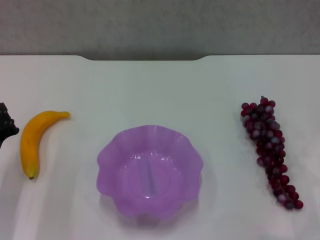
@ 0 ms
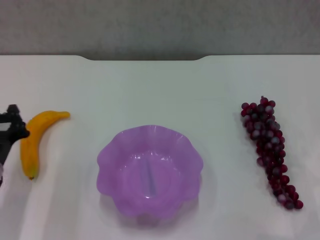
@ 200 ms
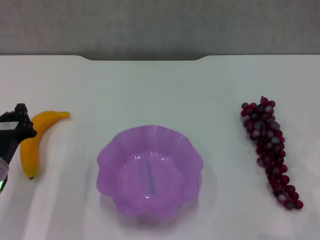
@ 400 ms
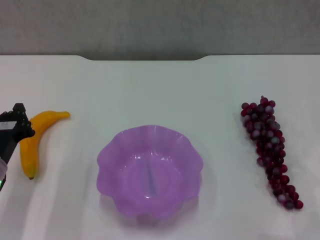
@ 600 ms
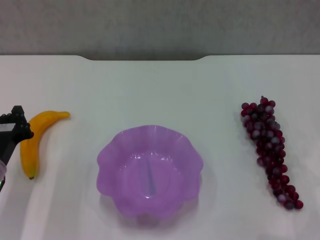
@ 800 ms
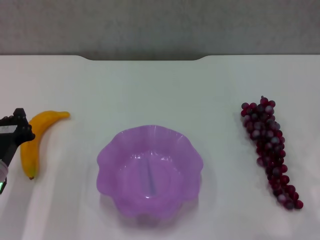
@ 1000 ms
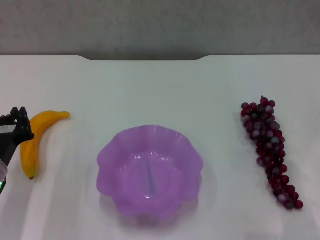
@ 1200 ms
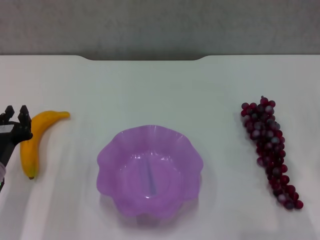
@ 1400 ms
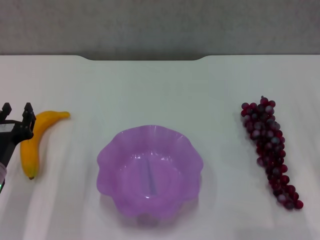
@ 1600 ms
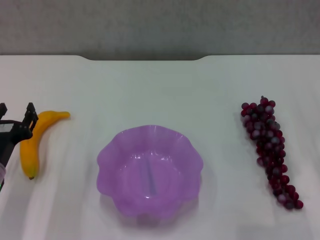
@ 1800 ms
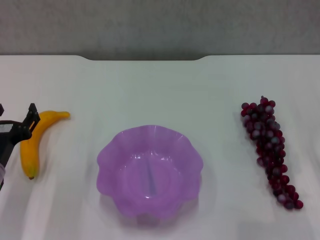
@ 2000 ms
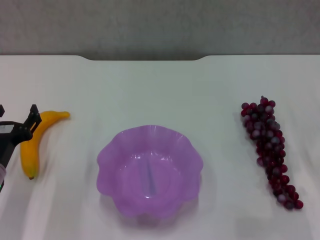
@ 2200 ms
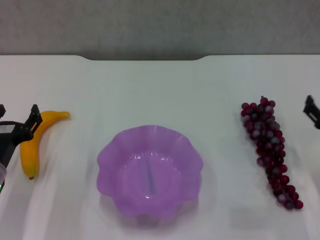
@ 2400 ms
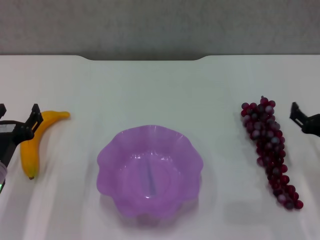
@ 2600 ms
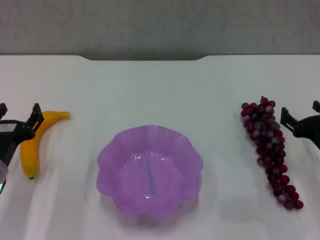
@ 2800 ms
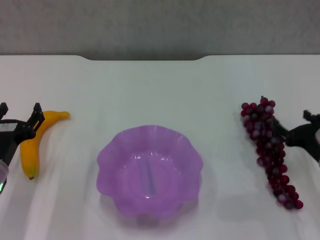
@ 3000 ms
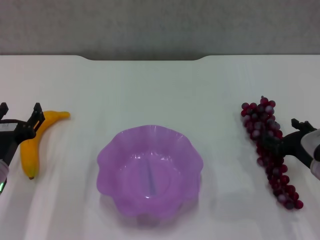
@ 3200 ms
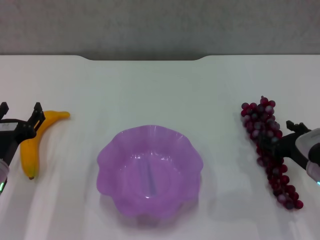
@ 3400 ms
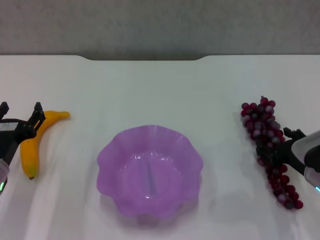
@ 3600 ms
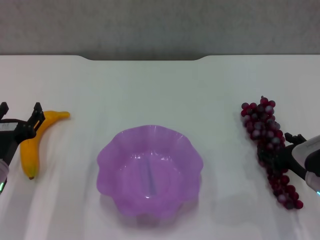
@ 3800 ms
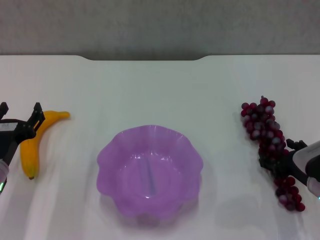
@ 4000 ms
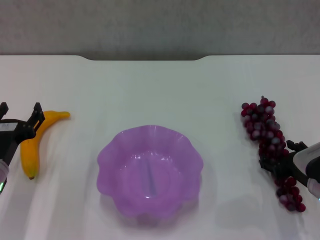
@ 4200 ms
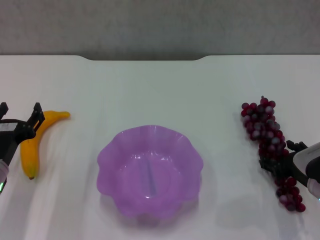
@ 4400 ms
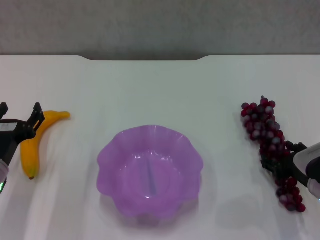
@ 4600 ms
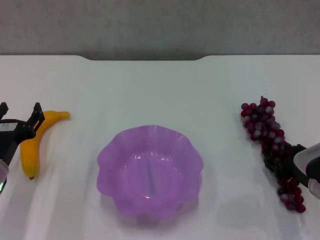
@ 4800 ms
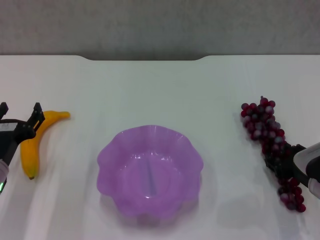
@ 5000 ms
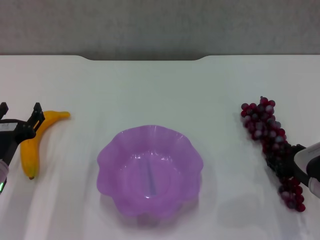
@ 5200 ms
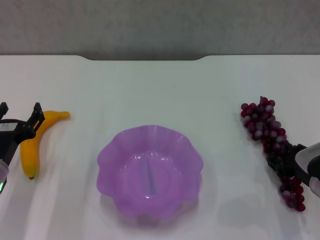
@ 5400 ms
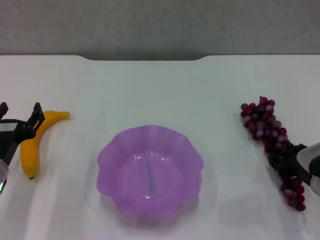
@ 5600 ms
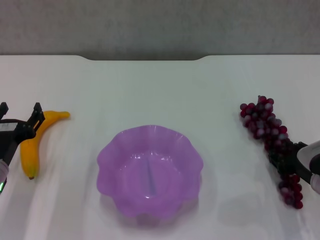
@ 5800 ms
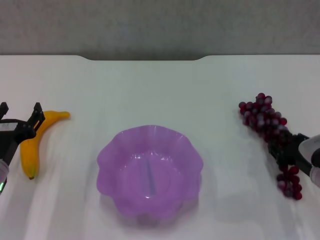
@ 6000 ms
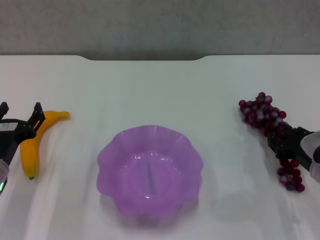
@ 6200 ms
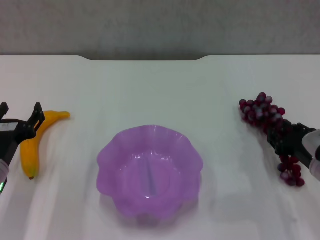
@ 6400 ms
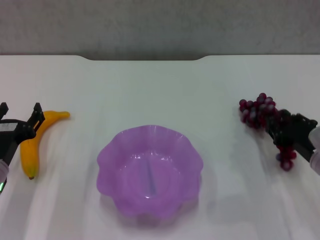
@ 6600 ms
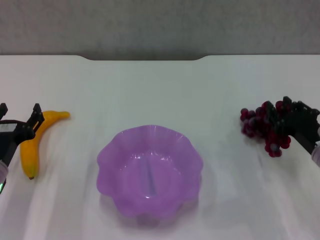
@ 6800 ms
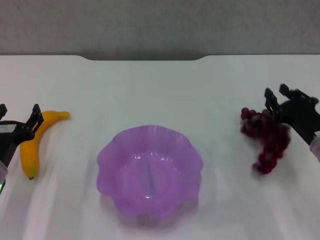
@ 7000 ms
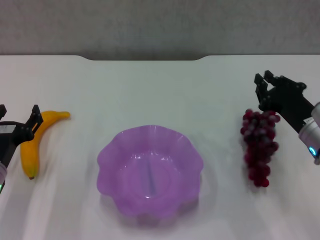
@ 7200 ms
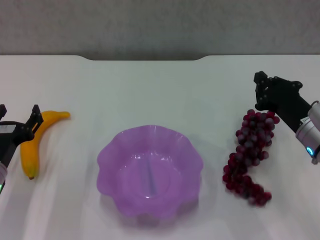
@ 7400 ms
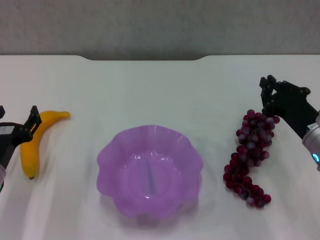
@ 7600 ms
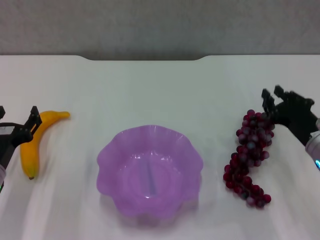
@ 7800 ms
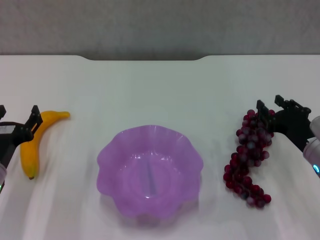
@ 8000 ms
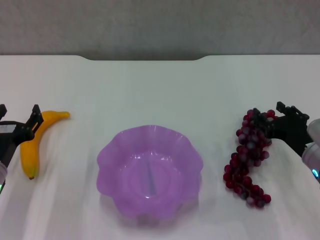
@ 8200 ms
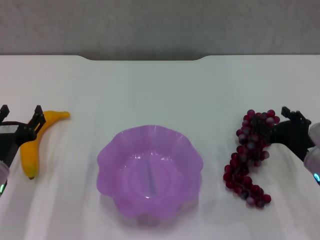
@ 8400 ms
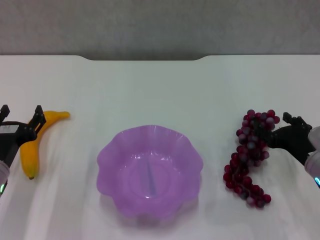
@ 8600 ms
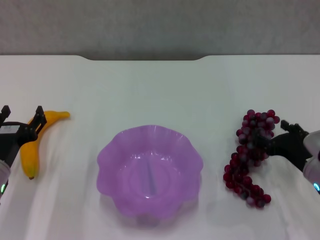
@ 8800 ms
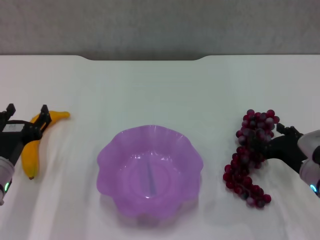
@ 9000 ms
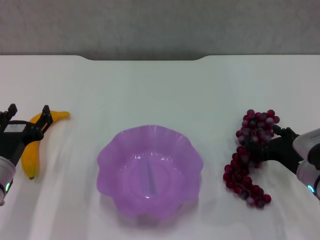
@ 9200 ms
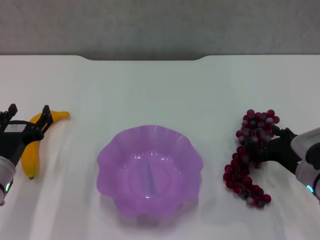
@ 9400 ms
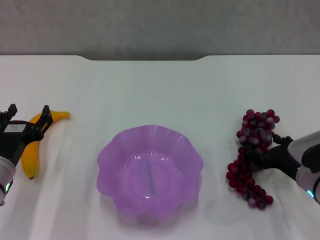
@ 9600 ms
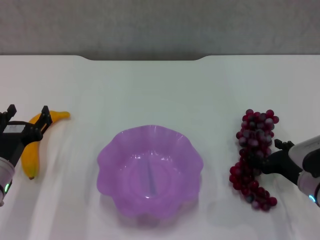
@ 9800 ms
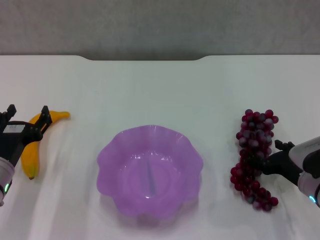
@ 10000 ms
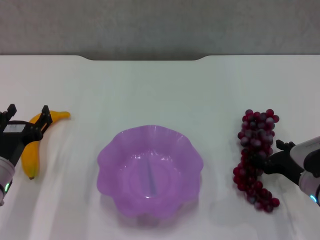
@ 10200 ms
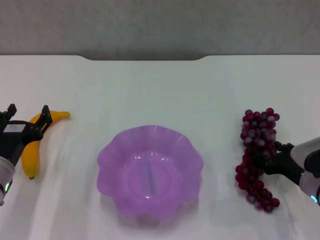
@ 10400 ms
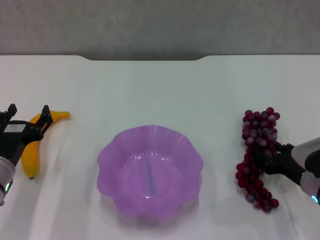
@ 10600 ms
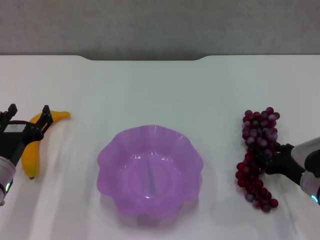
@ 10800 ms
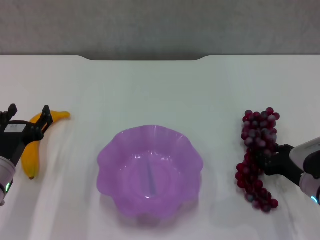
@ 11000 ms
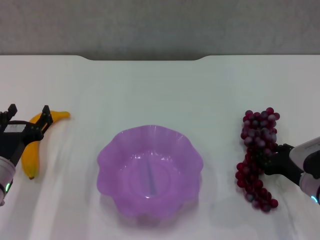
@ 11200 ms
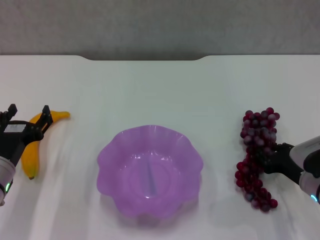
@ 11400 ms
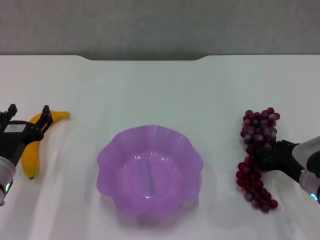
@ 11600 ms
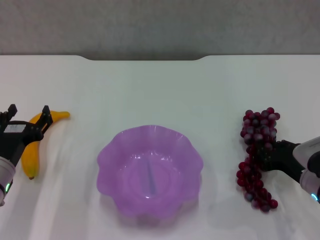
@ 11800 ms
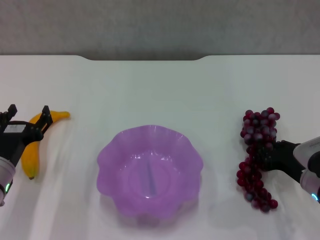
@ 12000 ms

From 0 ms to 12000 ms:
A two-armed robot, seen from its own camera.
From 0 ms to 1600 ms: There are only small adjustments of the grippers.
From 1600 ms to 3000 ms: The left gripper opens up. Meanwhile the right gripper ends up roughly 5 cm from where it was, and opens.
From 3000 ms to 4400 ms: The grippers make only small movements.
From 4400 ms to 6000 ms: The right gripper closes.
From 6000 ms to 7600 ms: The right gripper goes about 5 cm upward, and closes up.
From 7600 ms to 9000 ms: The right gripper changes place by roughly 5 cm, and opens up.
From 9000 ms to 10400 ms: There are only small adjustments of the grippers.
From 10400 ms to 12000 ms: The right gripper closes.

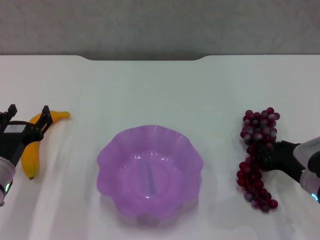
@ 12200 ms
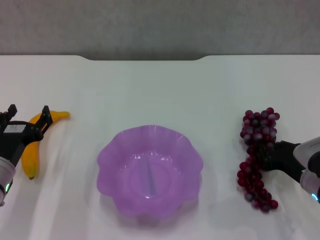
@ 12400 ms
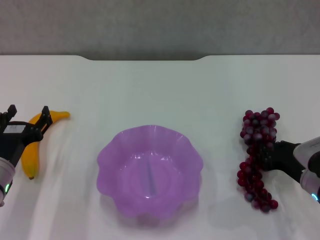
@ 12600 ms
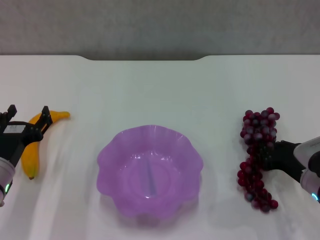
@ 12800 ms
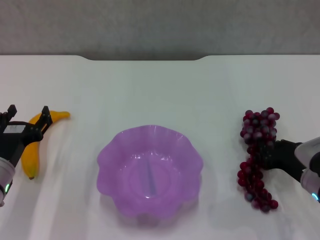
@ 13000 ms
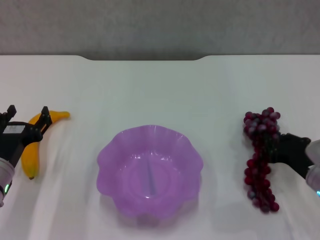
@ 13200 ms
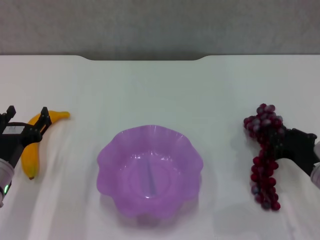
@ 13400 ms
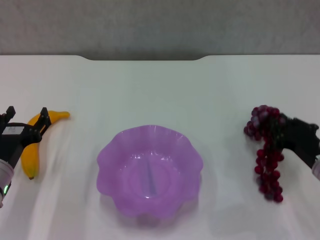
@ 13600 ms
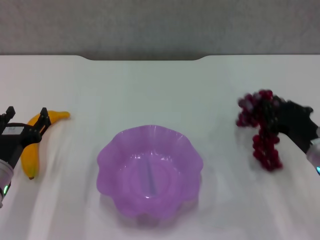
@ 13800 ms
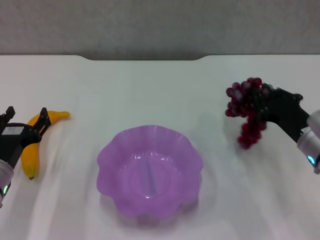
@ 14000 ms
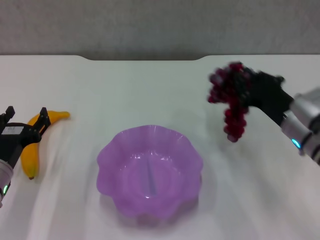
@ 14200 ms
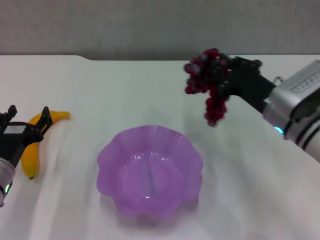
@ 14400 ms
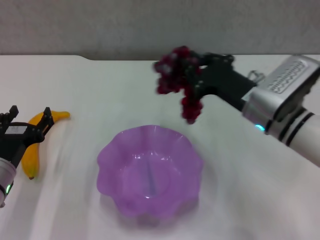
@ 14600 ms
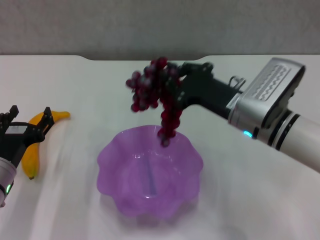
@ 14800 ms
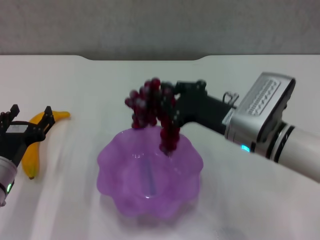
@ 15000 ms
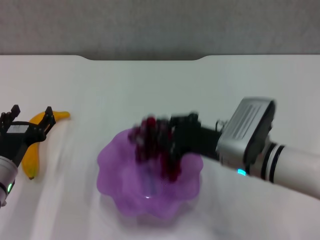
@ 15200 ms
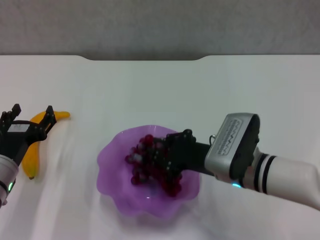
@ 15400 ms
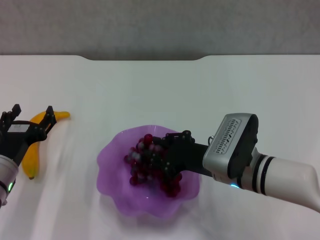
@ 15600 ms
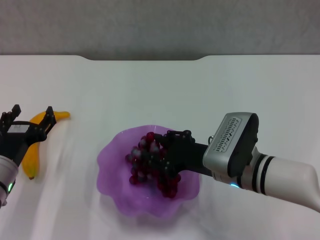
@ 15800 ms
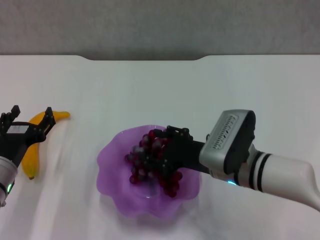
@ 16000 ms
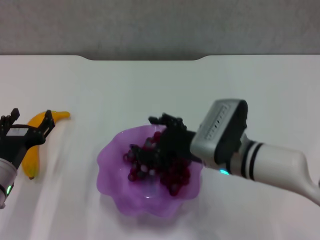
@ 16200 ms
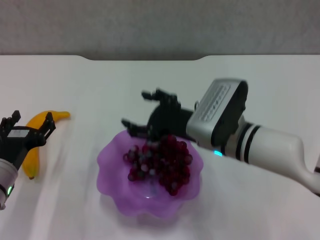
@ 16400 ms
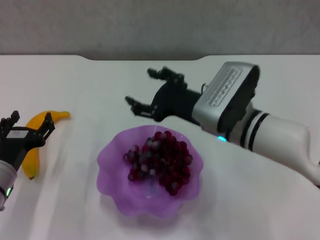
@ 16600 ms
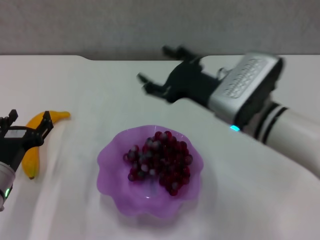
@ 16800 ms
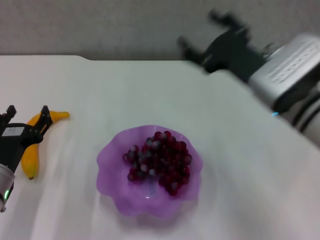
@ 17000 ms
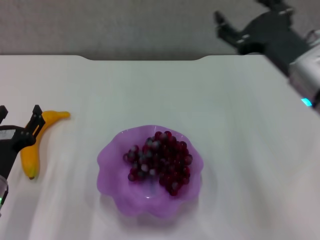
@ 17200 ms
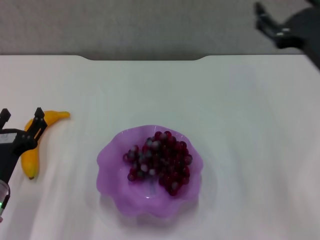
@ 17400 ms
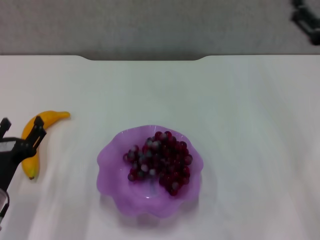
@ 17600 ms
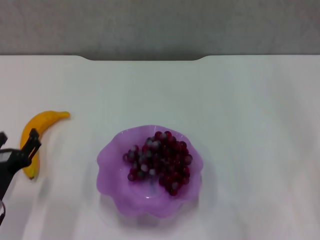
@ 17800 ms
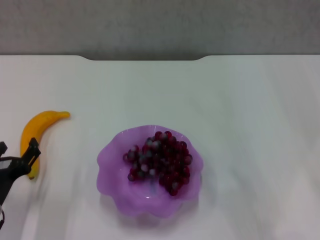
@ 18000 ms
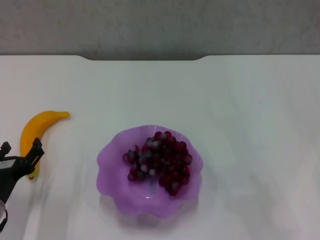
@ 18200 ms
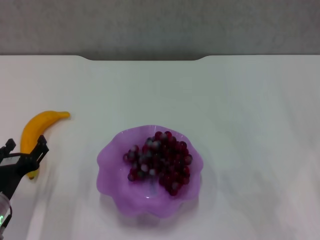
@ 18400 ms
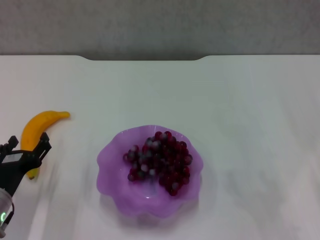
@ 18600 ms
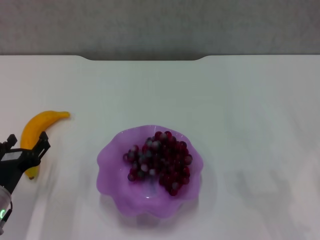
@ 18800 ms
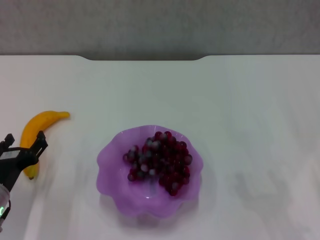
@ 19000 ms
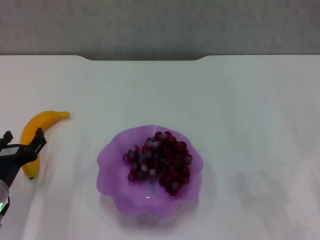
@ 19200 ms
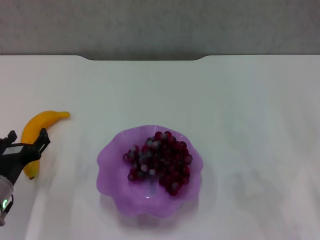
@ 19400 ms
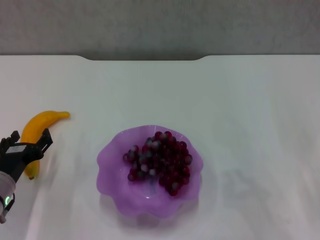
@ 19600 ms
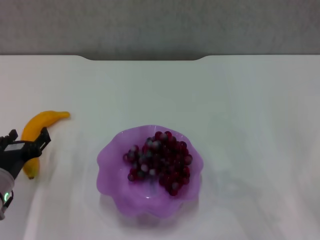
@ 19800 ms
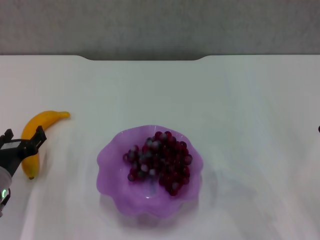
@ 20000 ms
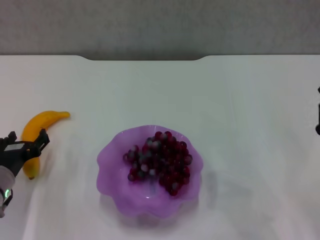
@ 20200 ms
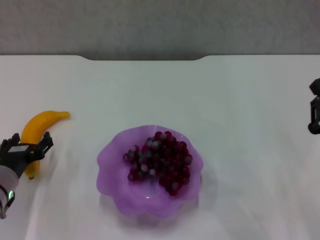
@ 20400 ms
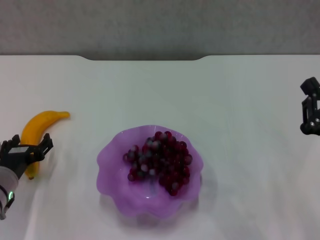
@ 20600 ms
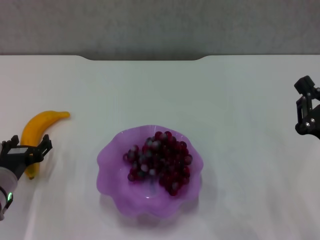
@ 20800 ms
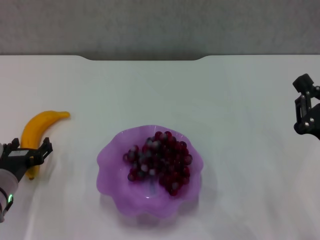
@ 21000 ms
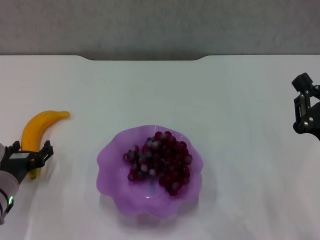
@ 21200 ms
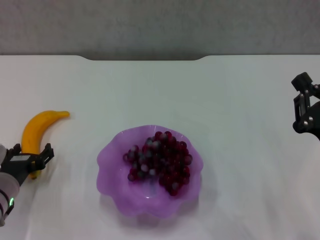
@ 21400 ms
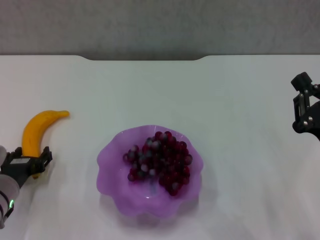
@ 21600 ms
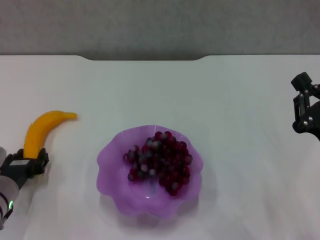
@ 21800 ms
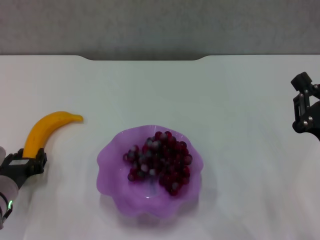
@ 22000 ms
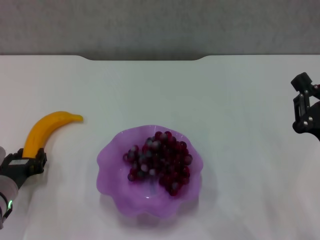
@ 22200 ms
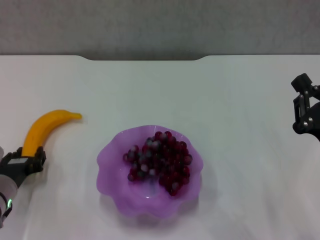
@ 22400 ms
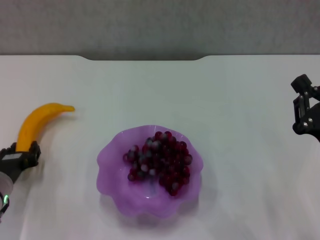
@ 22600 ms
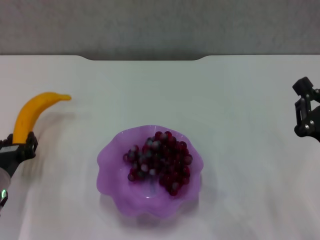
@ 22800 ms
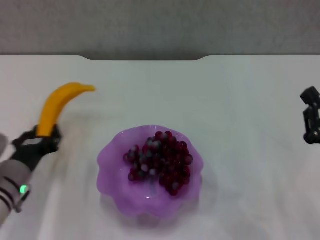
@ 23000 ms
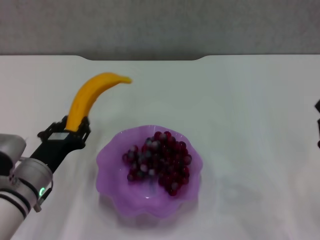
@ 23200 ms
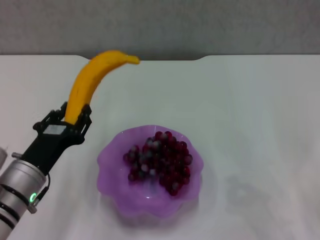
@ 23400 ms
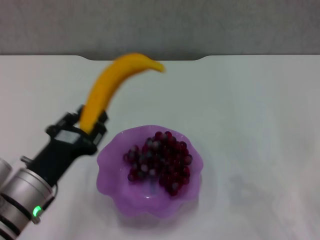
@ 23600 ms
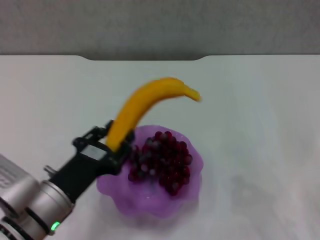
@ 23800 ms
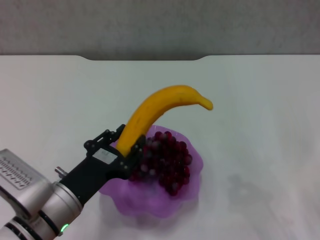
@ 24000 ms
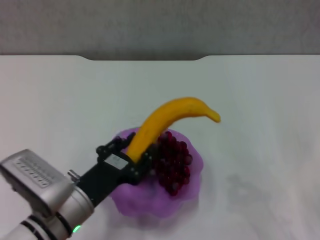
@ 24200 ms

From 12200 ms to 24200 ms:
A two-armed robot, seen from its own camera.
Step, from 13000 ms to 16200 ms: Place the grape in the purple plate with right gripper.
Step, from 16600 ms to 22200 ms: Grasp the banana with left gripper.
From 12200 ms to 13800 ms: There are only small adjustments of the grippers.
From 13800 ms to 15200 ms: The right gripper moves to the left, approximately 15 cm.
From 15200 ms to 16600 ms: The right gripper moves approximately 5 cm, and opens its fingers.
From 16600 ms to 18200 ms: The left gripper changes place by roughly 5 cm; the right gripper travels to the right and backward by approximately 25 cm.
From 19800 ms to 21200 ms: The grippers make only small movements.
From 21200 ms to 22600 ms: The left gripper closes its fingers.
From 22600 ms to 24200 ms: The left gripper goes approximately 15 cm to the right and backward; the right gripper is displaced to the right by about 5 cm.
